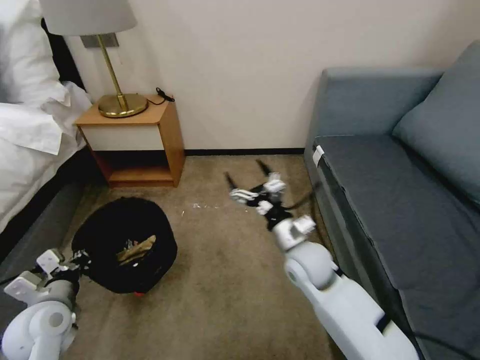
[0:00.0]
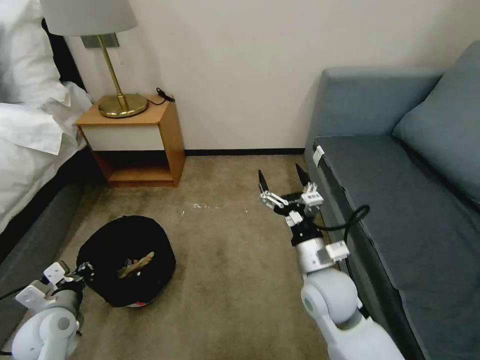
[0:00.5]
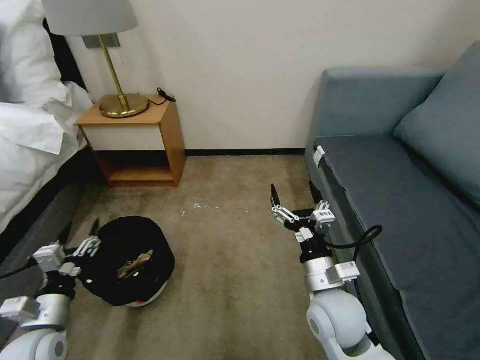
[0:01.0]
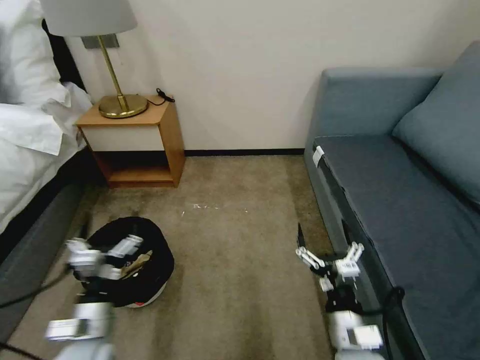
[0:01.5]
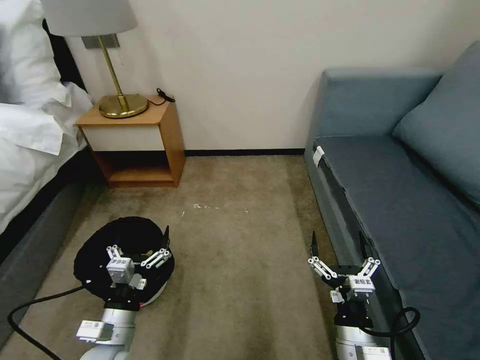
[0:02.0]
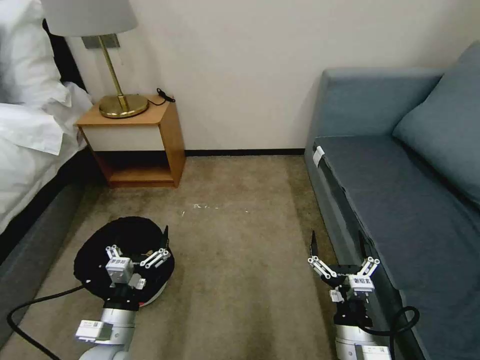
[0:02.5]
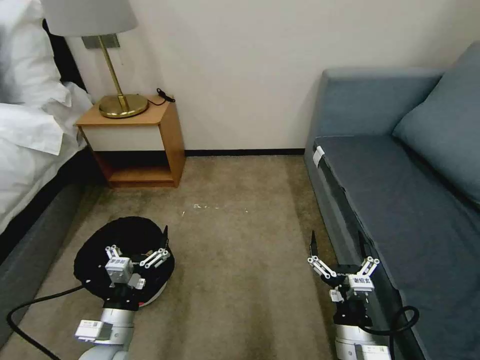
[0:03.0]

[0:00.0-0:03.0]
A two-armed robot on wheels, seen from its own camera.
Task of the whole recording: Pick up the trash bin, then pick up the garbage on the floor and place it into the trash bin.
0:00.0 to 0:01.5: The right gripper moves backward, about 20 cm. The left gripper goes roughly 10 cm to the right and backward, and opens.
0:01.5 to 0:03.0: The grippers make only small movements.

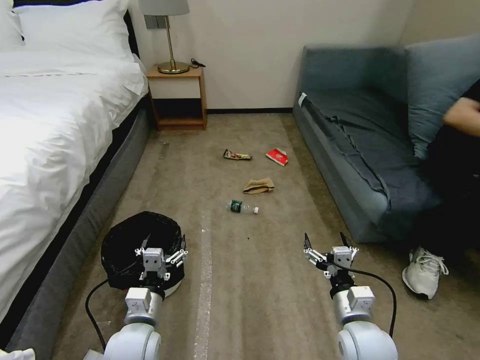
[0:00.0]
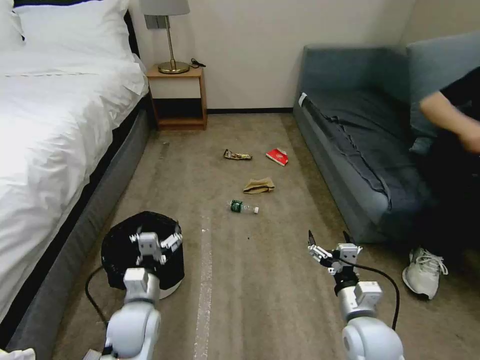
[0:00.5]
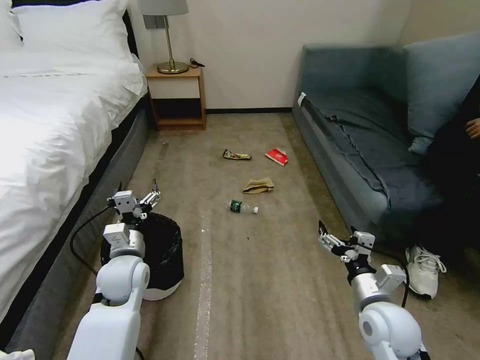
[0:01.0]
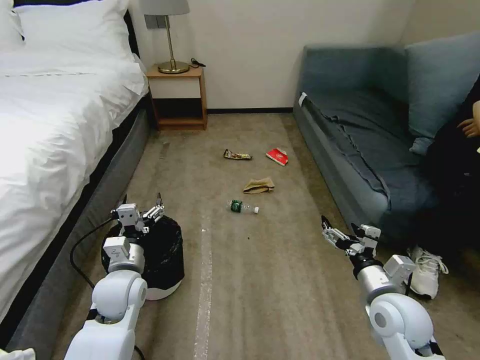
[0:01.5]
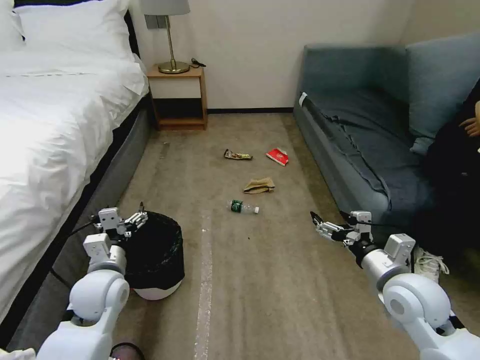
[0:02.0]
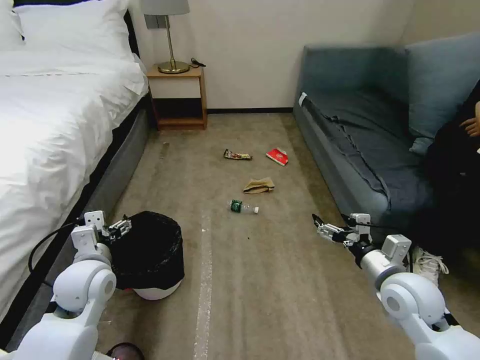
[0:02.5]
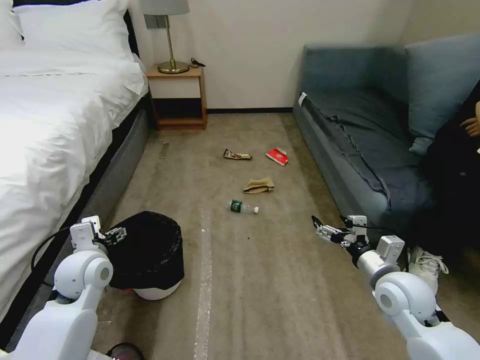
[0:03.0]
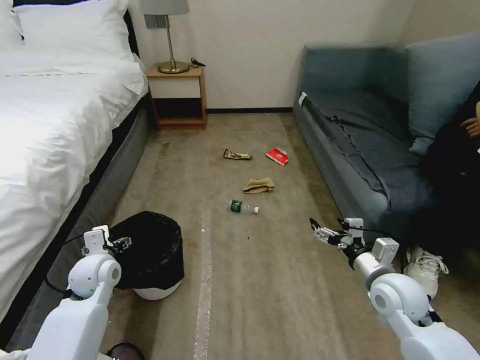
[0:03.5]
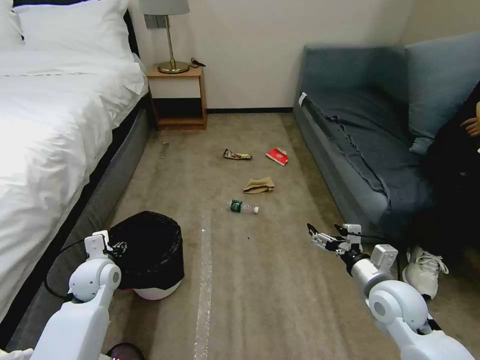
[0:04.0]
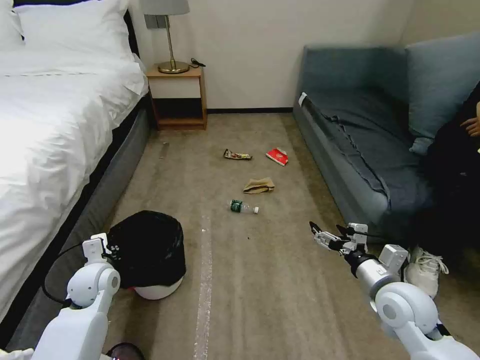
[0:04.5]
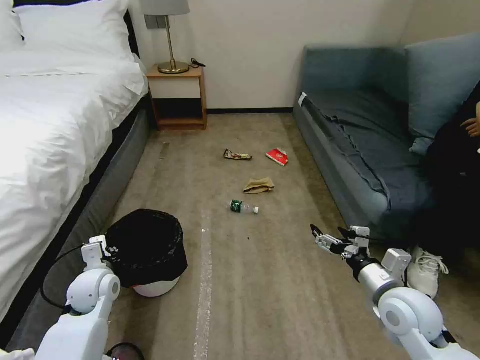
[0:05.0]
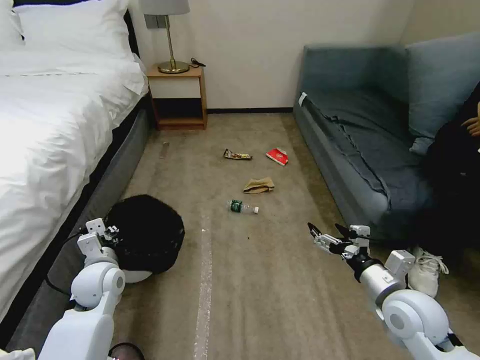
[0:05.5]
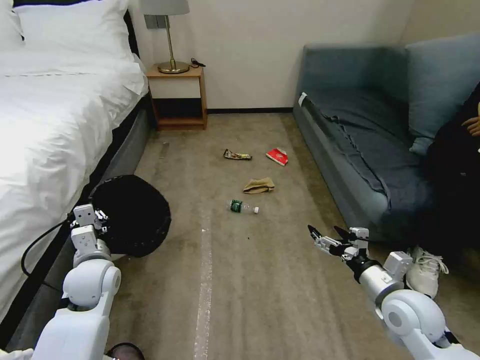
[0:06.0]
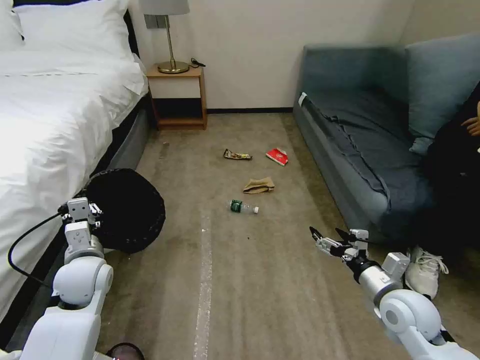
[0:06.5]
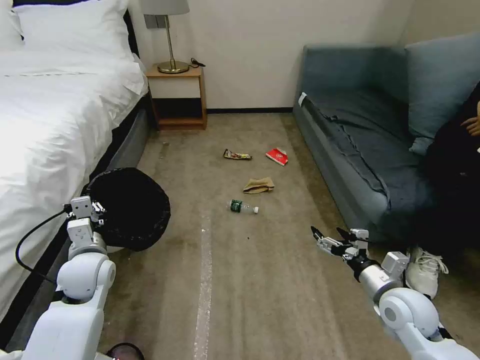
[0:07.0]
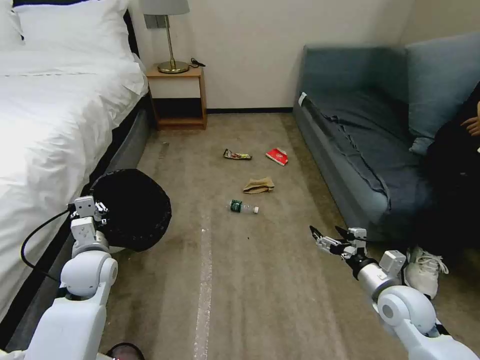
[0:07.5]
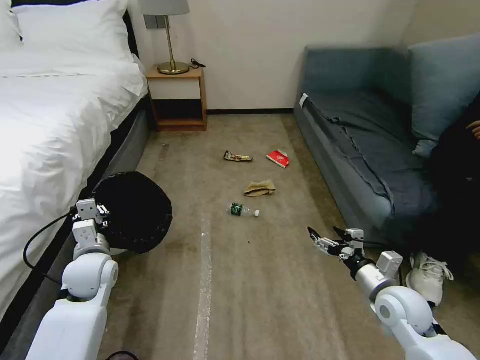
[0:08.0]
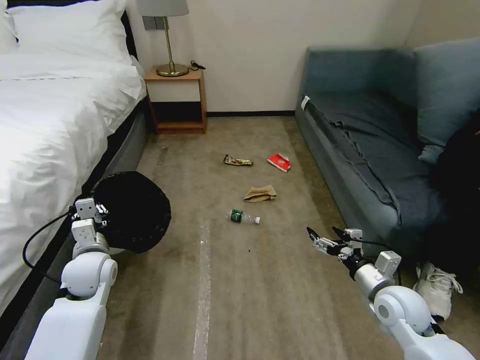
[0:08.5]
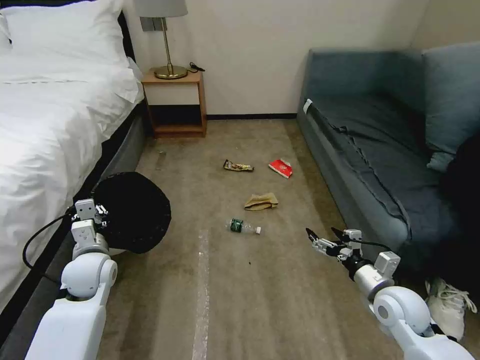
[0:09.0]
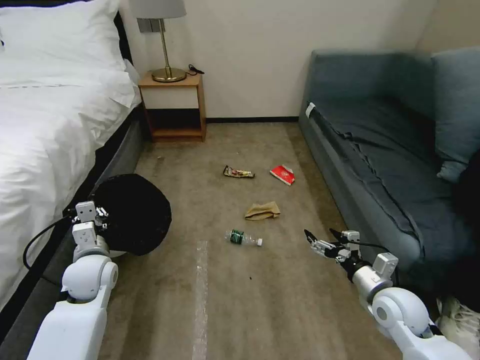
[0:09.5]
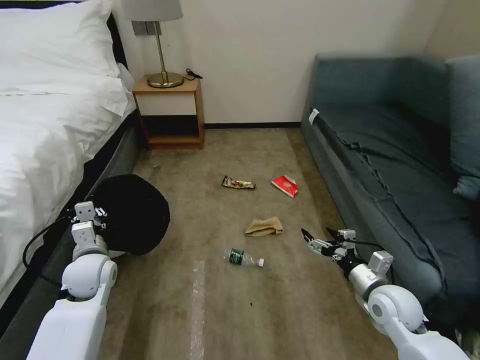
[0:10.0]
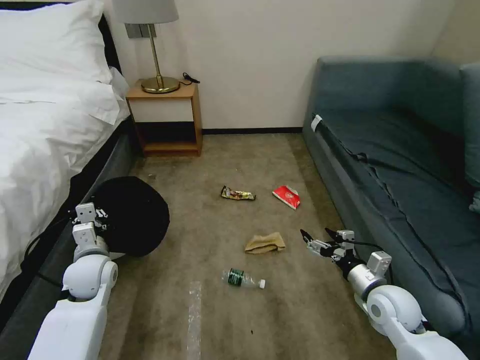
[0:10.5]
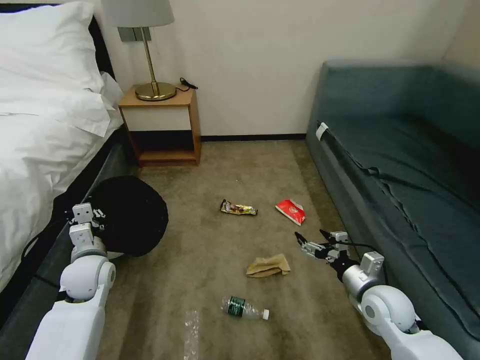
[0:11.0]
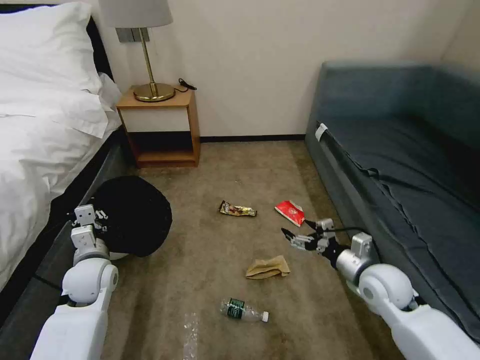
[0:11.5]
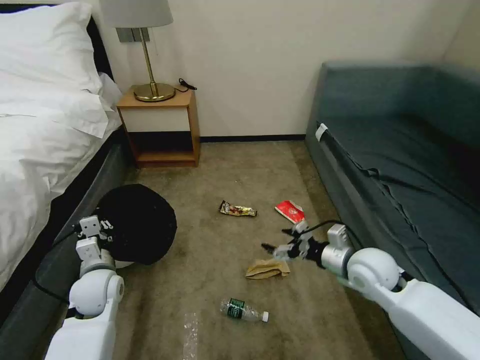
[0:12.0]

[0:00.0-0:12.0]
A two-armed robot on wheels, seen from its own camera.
Task of the whole recording: Pick up the trash bin, then pick up the garbage on the floor and place it into the trash bin.
0:02.0 to 0:04.0: The right gripper goes some 5 cm downward. The left gripper travels to the left and forward by roughly 10 cm.
0:04.0 to 0:06.0: The left gripper shifts by about 5 cm, and closes.
0:06.0 to 0:08.0: The grippers stay close to where they were, moving slightly.
0:10.0 to 0:12.0: The right gripper shifts about 10 cm upward, forward and to the left.

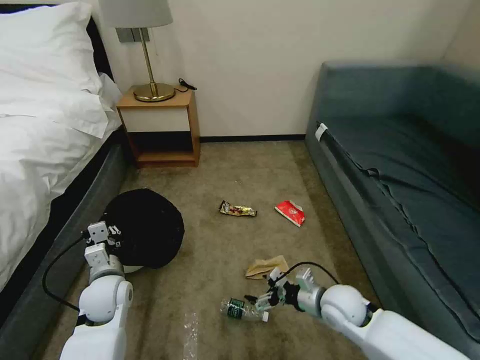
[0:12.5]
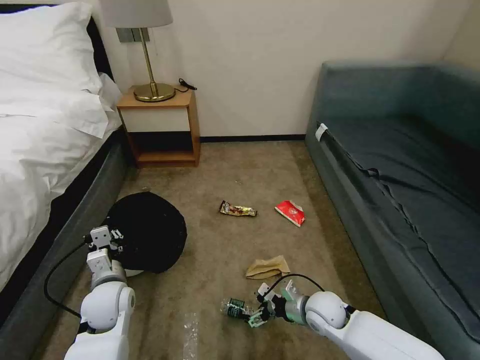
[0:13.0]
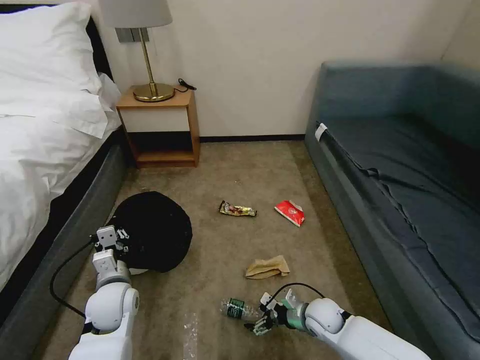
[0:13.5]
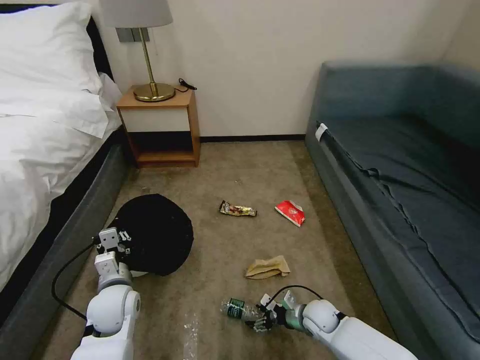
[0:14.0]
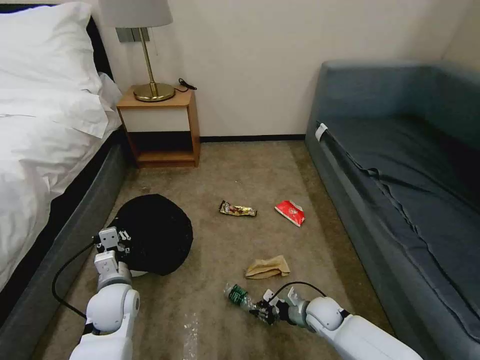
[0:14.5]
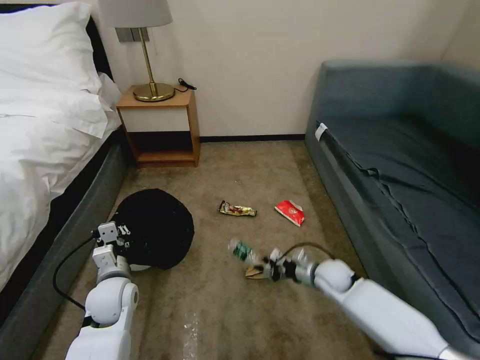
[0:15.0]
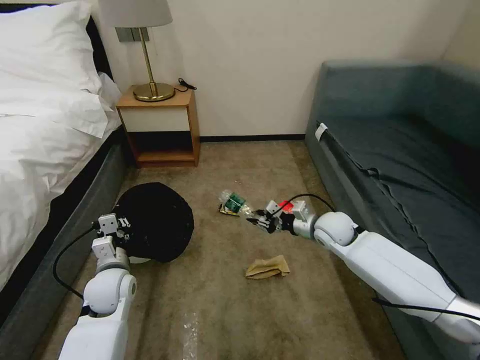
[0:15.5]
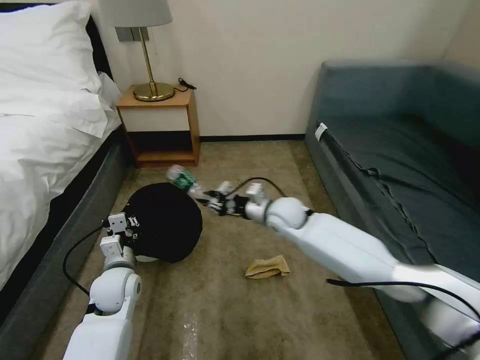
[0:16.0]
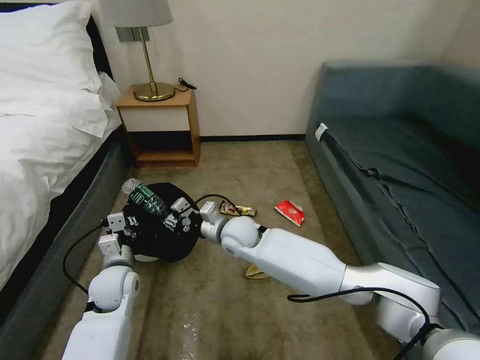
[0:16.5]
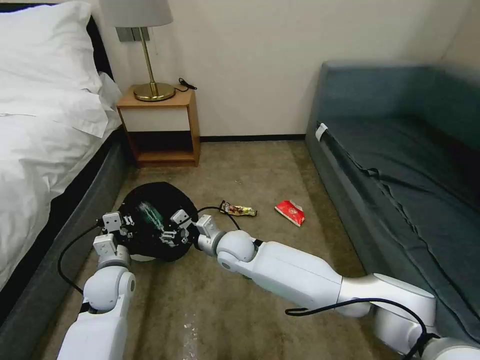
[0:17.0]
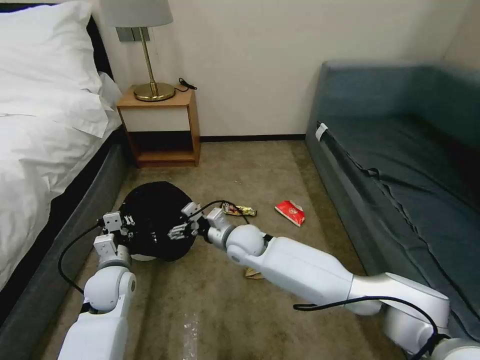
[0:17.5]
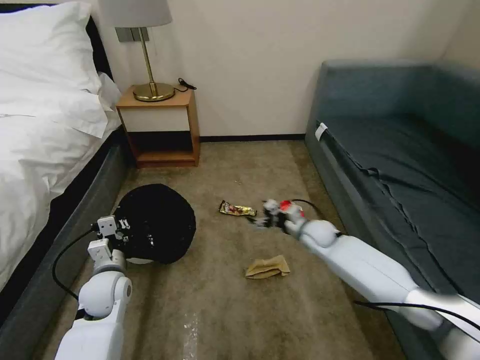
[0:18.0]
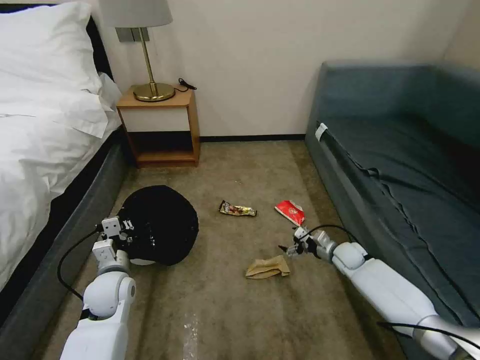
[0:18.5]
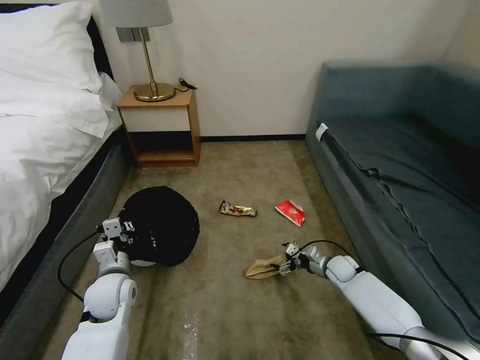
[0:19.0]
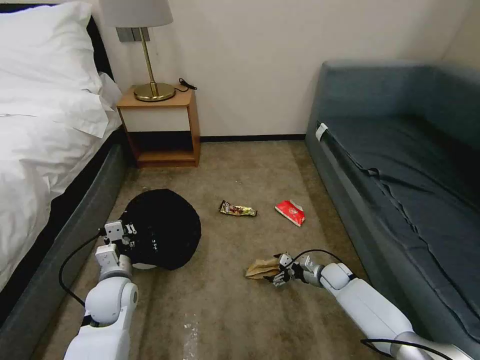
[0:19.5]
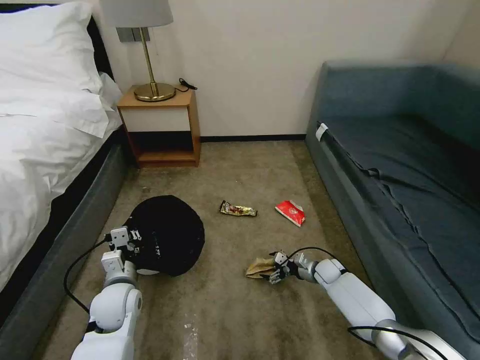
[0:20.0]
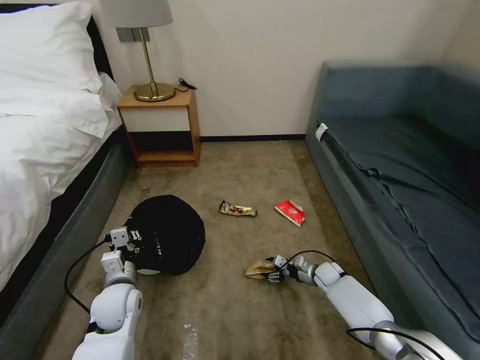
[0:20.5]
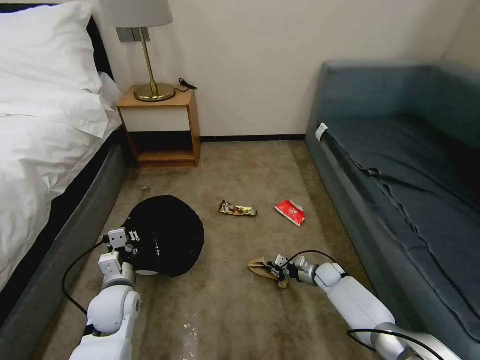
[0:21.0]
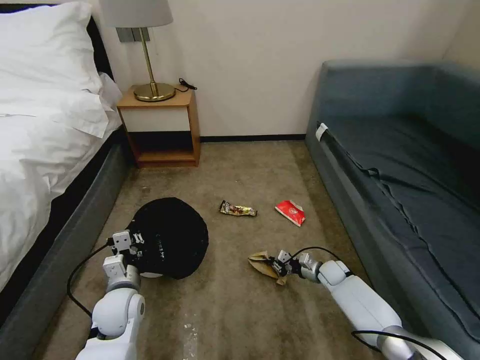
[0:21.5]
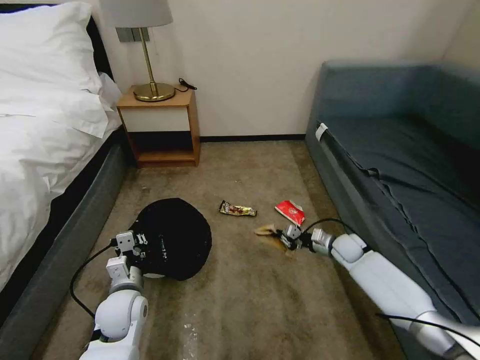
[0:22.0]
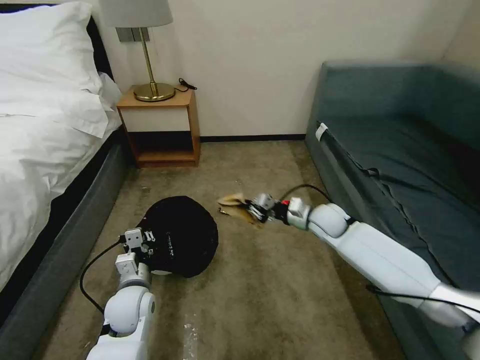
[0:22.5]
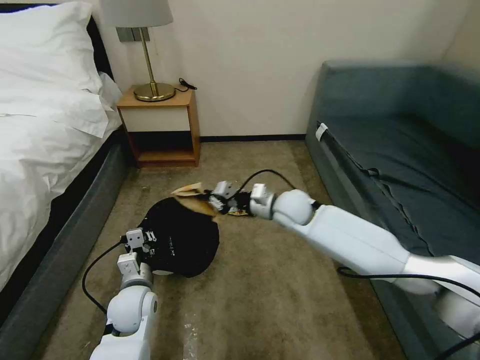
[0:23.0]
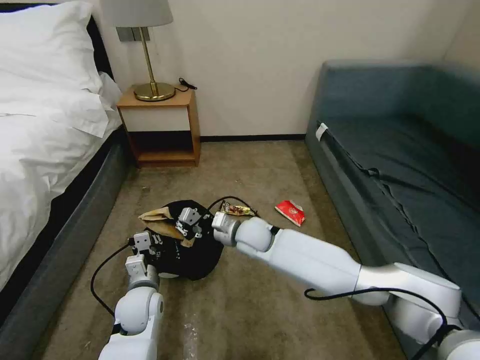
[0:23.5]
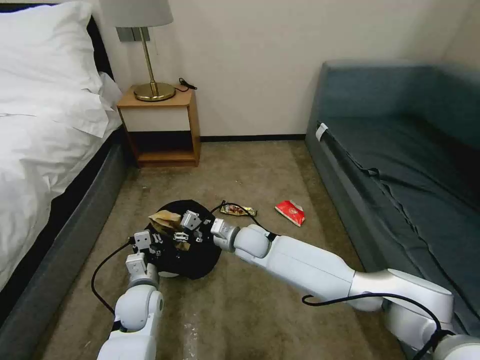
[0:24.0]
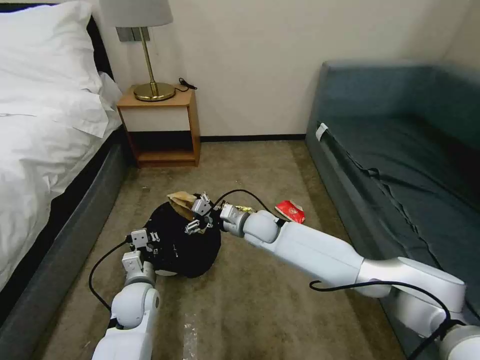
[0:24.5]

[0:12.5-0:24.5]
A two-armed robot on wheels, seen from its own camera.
Task of the whole recording: Pick up the trash bin, then pick up the garbage on the floor and place it into the trash bin.
0:12.5 to 0:14.5: The right gripper is displaced downward by approximately 15 cm, and closes up.
0:14.5 to 0:16.5: The right gripper is displaced to the left, upward and forward by approximately 35 cm.
0:16.5 to 0:18.5: The right gripper travels to the right and downward by about 35 cm, and opens up.
0:18.5 to 0:20.5: The right gripper travels downward by some 10 cm, and closes.
0:20.5 to 0:22.5: The right gripper goes roughly 25 cm upward, and closes its fingers.
0:22.5 to 0:24.5: The right gripper heads to the left, covering about 20 cm, and opens its fingers.
